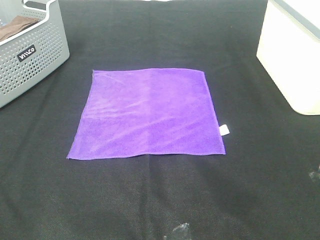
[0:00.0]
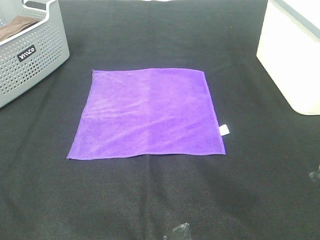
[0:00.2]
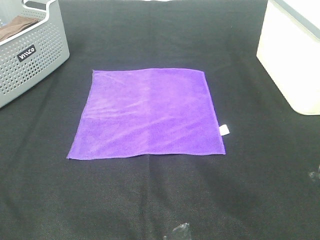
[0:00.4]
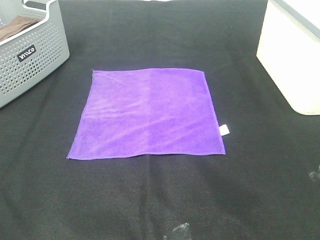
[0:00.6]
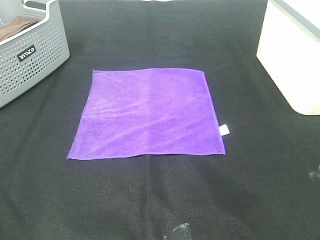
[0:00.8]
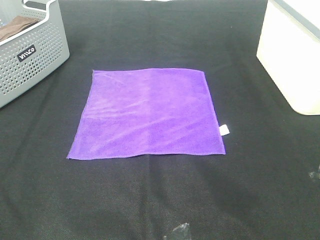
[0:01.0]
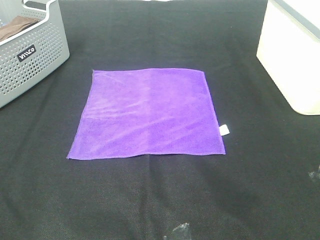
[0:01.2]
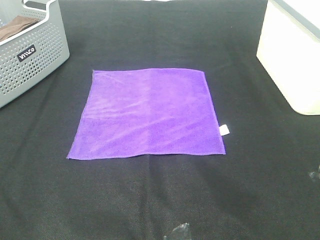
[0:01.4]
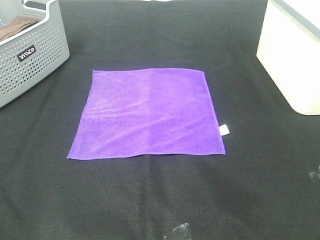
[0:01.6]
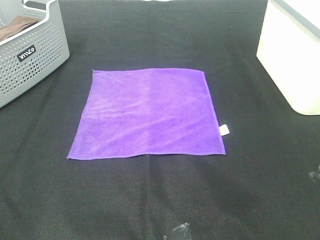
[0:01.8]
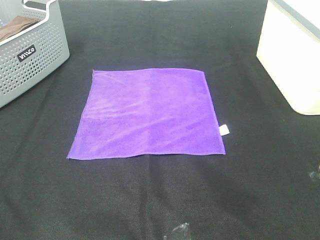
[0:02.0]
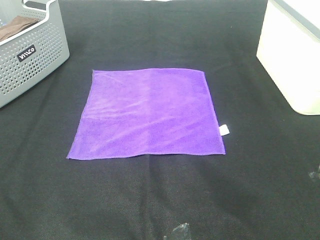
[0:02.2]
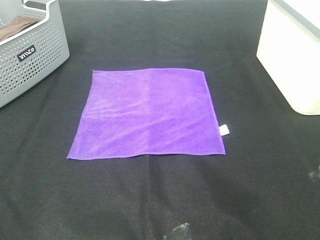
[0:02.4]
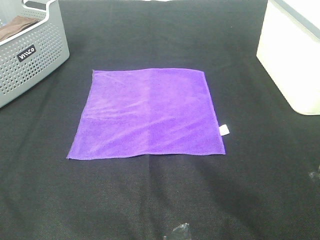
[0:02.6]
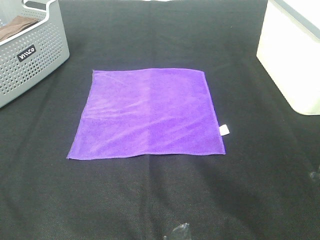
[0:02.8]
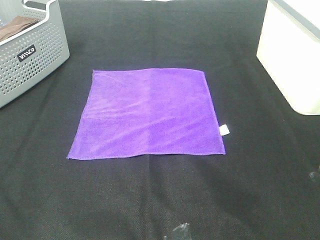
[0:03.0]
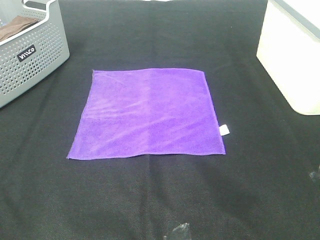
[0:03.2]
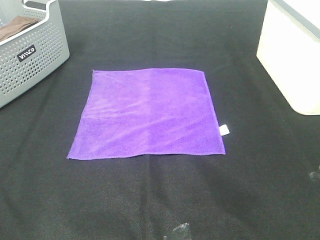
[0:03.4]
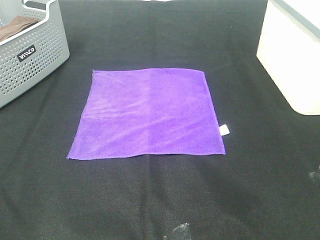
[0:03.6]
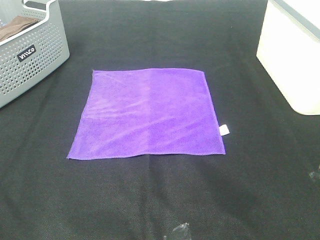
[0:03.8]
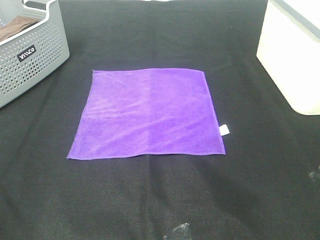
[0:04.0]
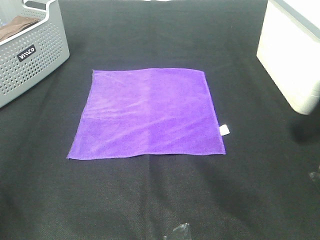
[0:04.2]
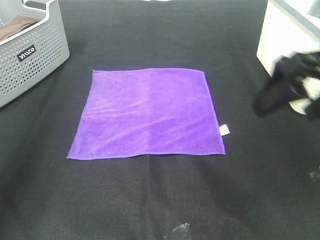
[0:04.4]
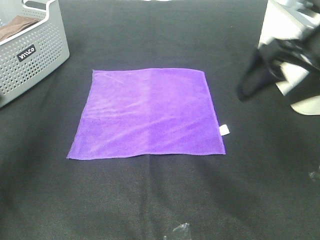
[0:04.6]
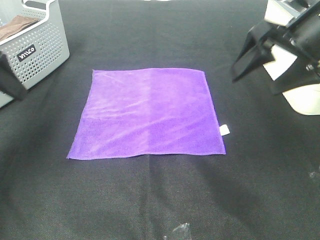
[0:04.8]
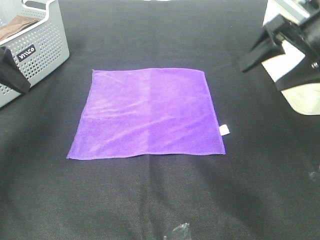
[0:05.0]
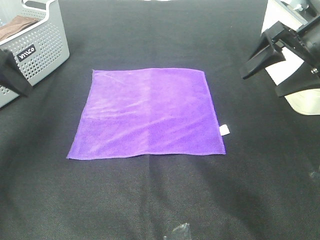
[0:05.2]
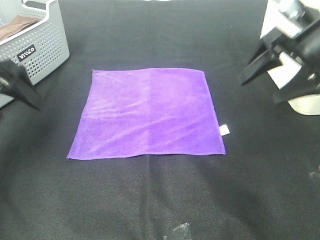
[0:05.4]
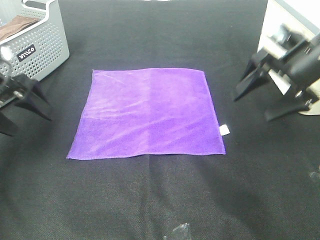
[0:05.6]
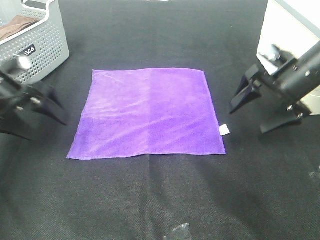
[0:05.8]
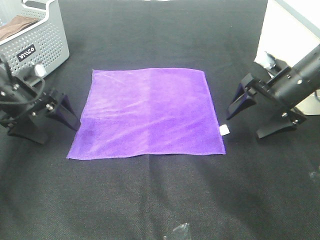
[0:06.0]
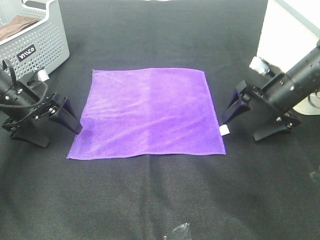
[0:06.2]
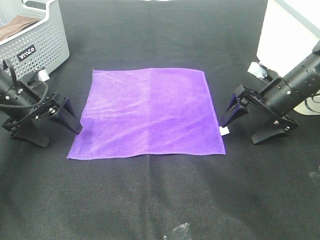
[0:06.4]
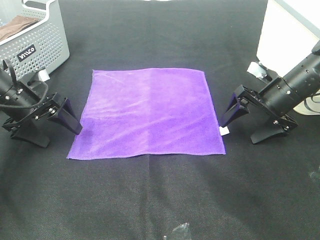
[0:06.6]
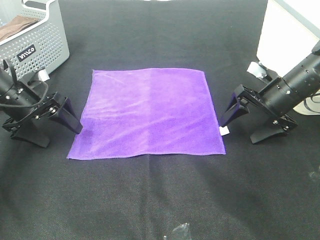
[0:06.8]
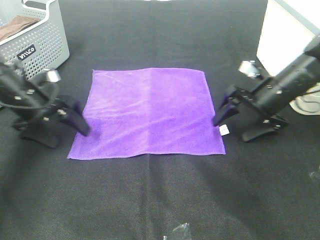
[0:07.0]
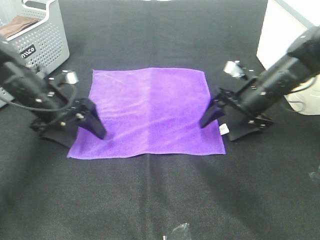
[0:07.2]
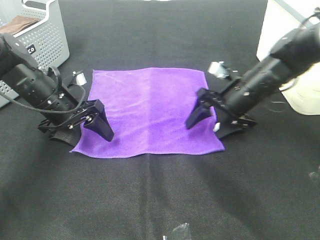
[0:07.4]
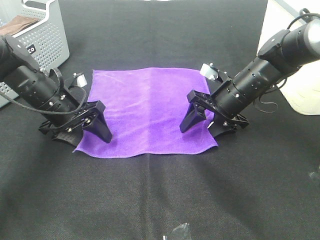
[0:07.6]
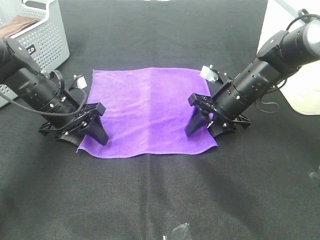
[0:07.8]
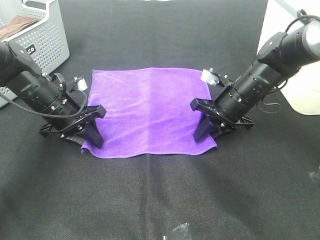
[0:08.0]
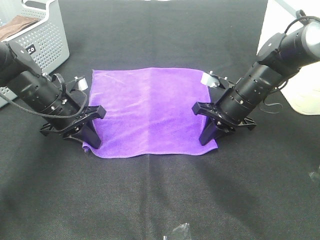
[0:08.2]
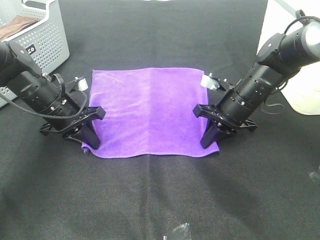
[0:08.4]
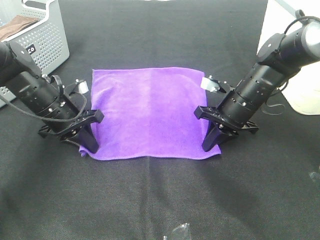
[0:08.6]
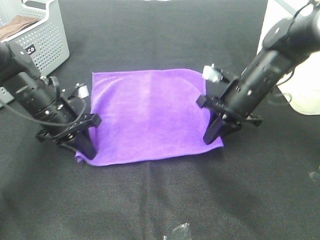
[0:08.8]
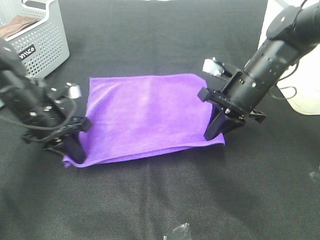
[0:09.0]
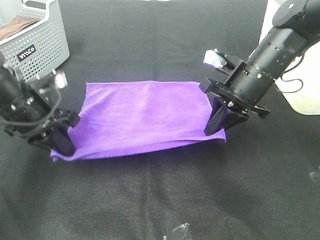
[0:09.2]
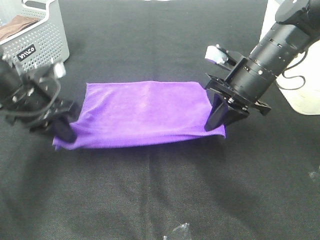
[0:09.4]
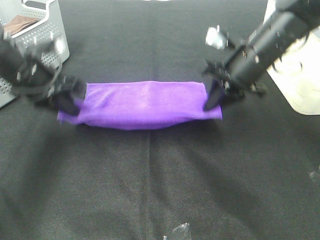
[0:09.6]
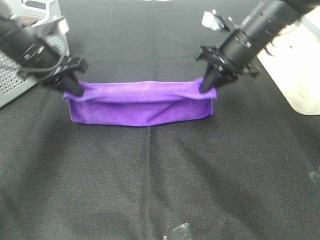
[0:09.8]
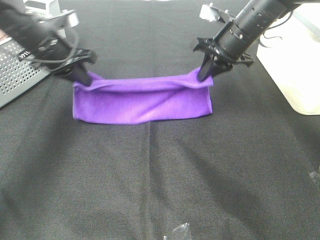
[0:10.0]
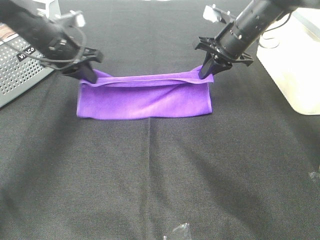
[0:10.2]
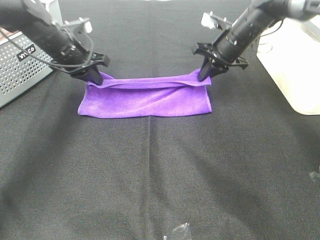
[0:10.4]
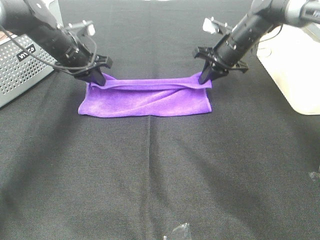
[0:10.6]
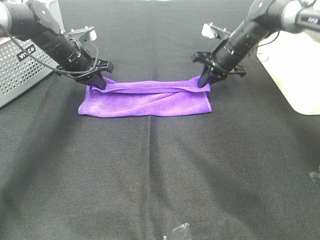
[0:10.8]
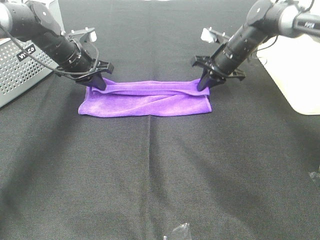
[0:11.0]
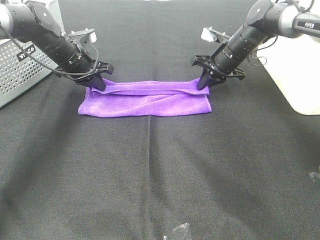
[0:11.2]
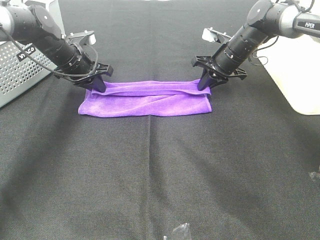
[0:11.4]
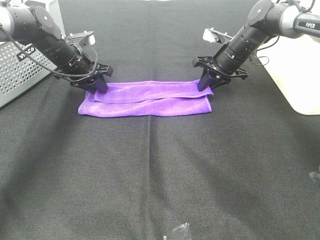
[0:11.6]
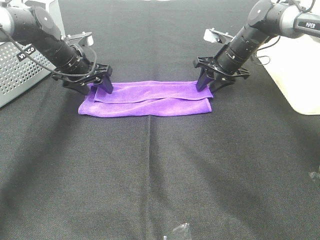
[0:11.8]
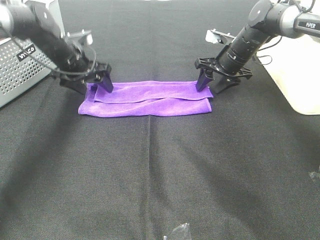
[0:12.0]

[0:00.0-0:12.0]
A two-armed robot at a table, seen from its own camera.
Task of the whole recording: Fold towels.
Step, 0:00.0 to 0:08.2: Left hand: grab the bottom left corner of purple towel.
Step, 0:00.0 to 0:08.2: Right hand: grab the bottom right corner of purple towel.
Step, 0:08.4 to 0:11.2: Left hand: fold the purple towel up.
Step, 0:08.4 to 0:11.2: Right hand: fold the purple towel up.
0:00.0 to 0:03.0: Both grippers stay put.
0:03.0 to 0:04.4: Both grippers travel together forward, about 25 cm.
0:04.4 to 0:06.0: Both grippers travel together downward and forward, approximately 25 cm.
0:06.0 to 0:07.6: The right gripper travels to the left by about 10 cm. Meanwhile the left gripper goes roughly 10 cm to the right, and closes its fingers.
0:07.6 to 0:09.0: The right gripper heads upward, covering about 5 cm, and closes, while the left gripper changes place by approximately 5 cm, and closes up.
0:09.0 to 0:10.4: The two grippers go about 15 cm forward.
0:10.4 to 0:12.0: The right gripper opens up; the left gripper opens.

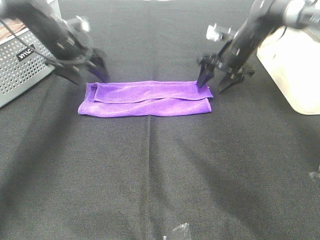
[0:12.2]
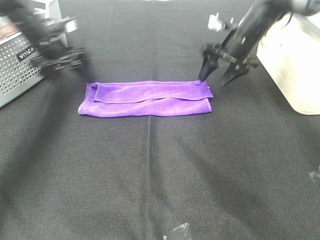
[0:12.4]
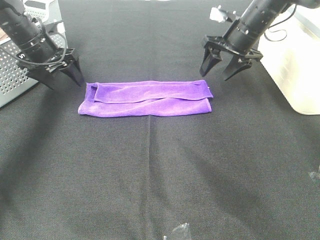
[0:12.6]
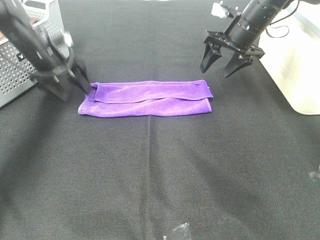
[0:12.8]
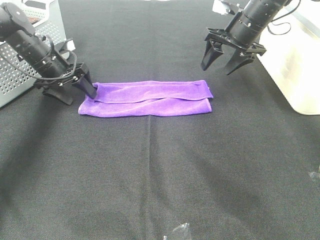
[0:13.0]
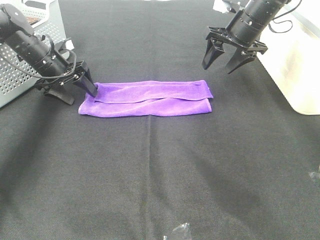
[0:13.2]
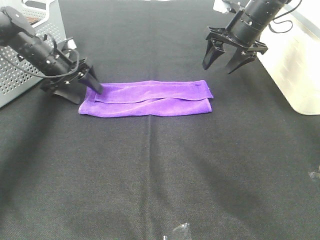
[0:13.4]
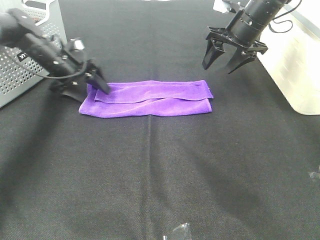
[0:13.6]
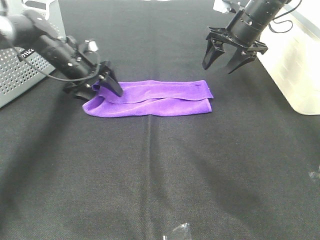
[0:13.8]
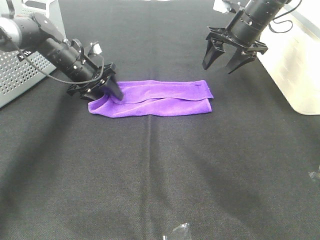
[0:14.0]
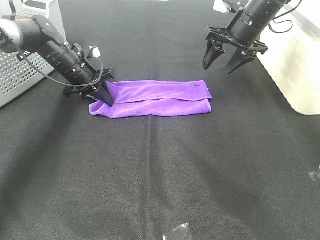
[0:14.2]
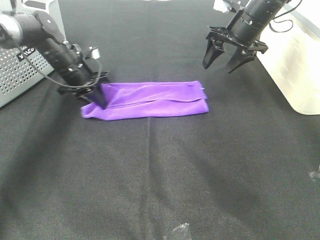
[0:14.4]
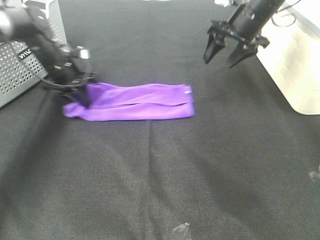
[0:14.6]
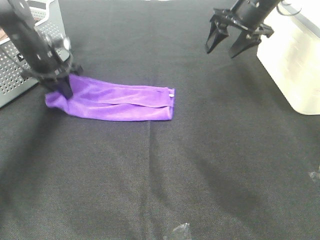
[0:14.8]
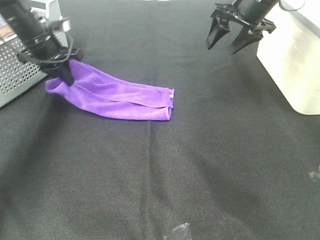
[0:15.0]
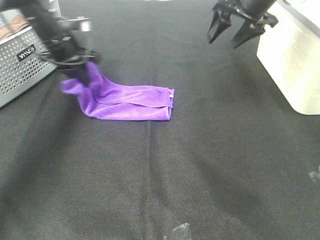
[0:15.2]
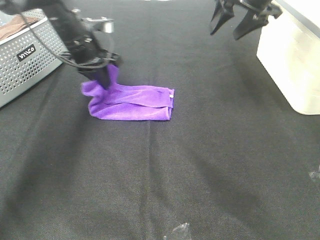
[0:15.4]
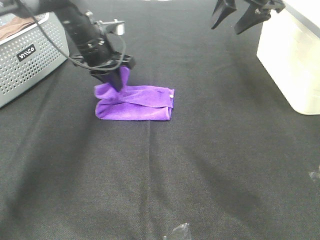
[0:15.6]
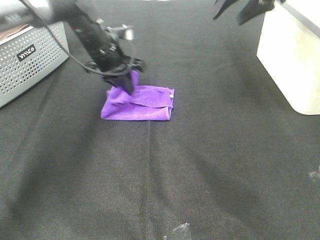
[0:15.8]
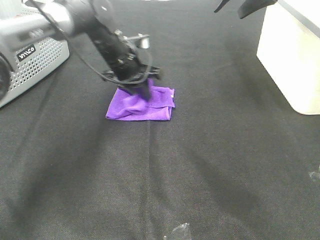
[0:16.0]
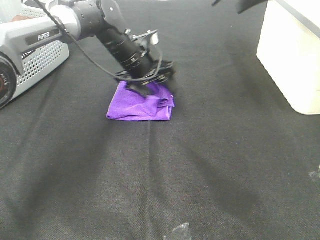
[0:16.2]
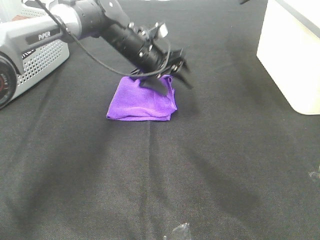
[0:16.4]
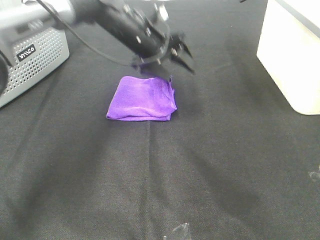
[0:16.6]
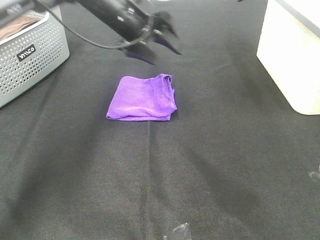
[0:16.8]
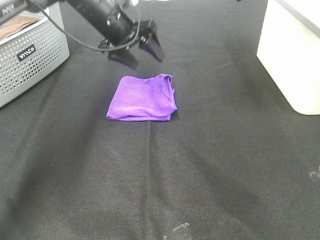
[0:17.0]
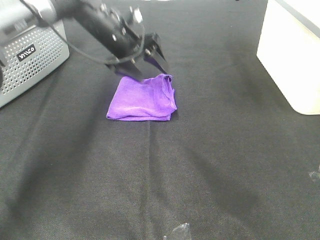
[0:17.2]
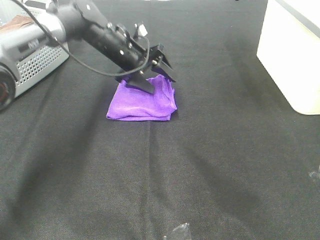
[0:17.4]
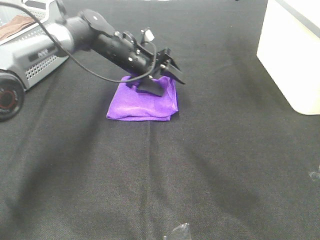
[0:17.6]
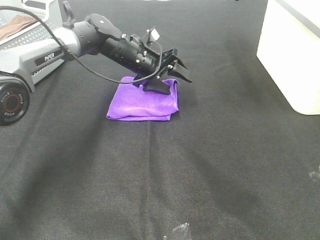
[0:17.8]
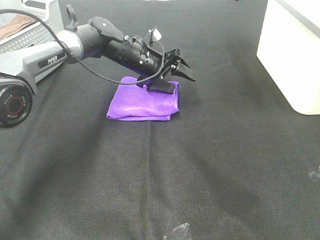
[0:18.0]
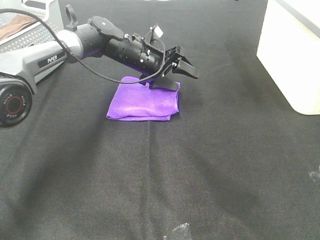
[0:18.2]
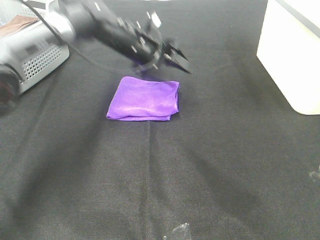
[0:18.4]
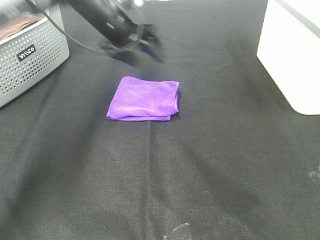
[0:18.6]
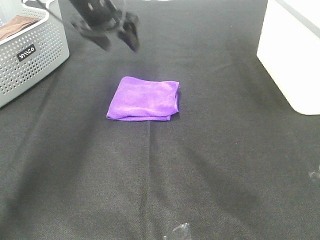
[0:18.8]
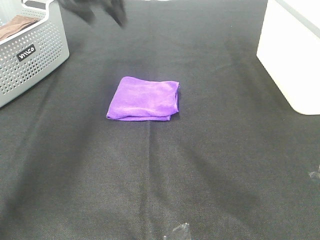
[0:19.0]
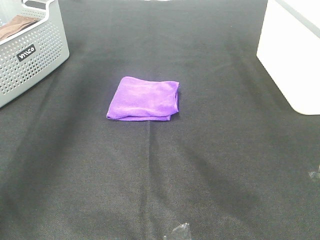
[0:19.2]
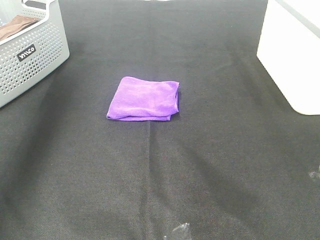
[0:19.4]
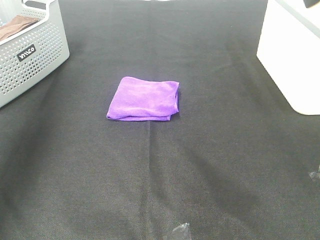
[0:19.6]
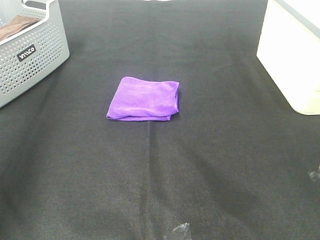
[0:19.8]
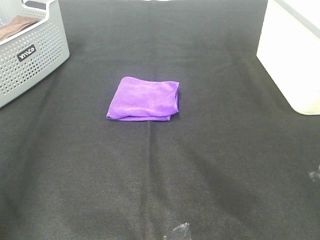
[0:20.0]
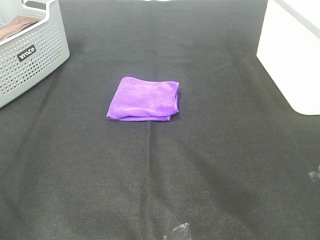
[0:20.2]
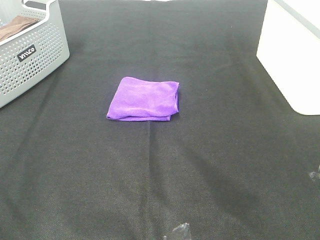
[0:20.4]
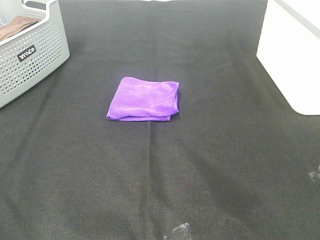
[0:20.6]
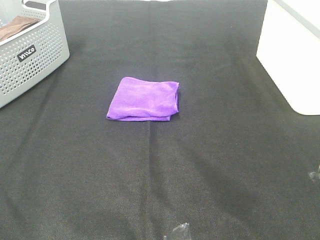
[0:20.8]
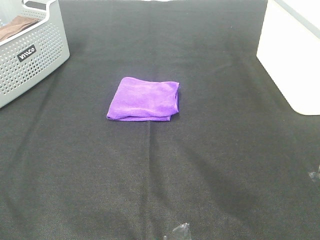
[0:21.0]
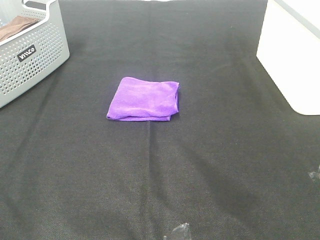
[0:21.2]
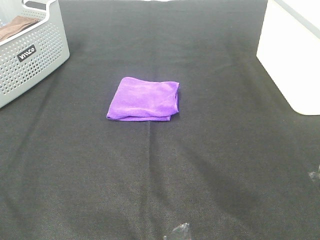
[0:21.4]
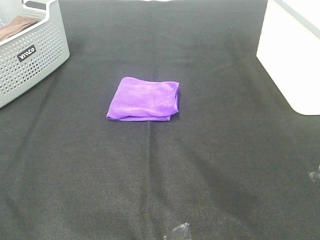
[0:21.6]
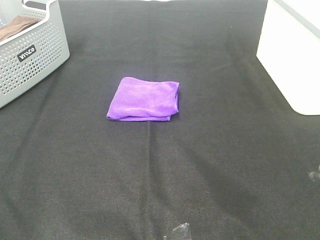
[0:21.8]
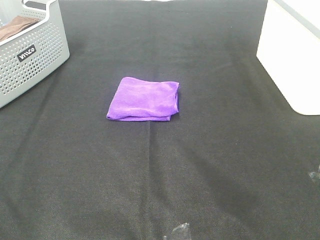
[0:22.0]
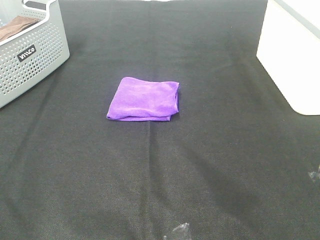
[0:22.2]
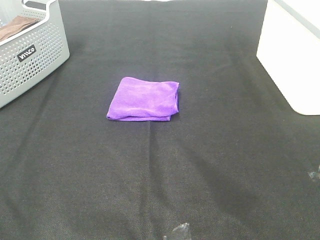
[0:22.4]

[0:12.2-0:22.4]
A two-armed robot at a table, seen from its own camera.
Task of the whole recording: Fold towels.
Step, 0:12.2 to 0:16.0: Left hand: fold the purple towel from left to right.
0:12.2 to 0:13.6: The right gripper travels upward by about 5 cm; the left gripper moves downward, approximately 5 cm.
0:13.6 to 0:15.2: The grippers both shift upward by about 10 cm. The left gripper closes.
0:15.2 to 0:16.6: The left gripper travels to the right by approximately 15 cm, and opens. The right gripper is displaced upward by roughly 10 cm.
0:16.6 to 0:18.0: The left gripper travels downward by roughly 10 cm.
0:18.0 to 0:19.4: The left gripper shifts about 40 cm upward, to the left and backward, while the right gripper is displaced backward by roughly 20 cm.
0:19.4 to 0:21.0: The left gripper travels backward by approximately 40 cm.
